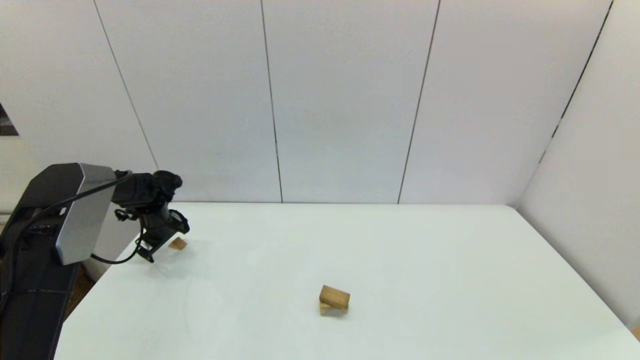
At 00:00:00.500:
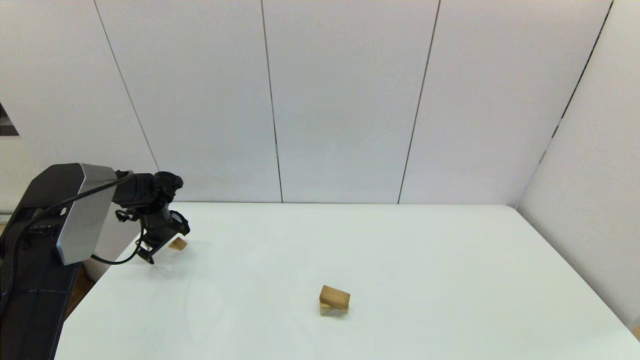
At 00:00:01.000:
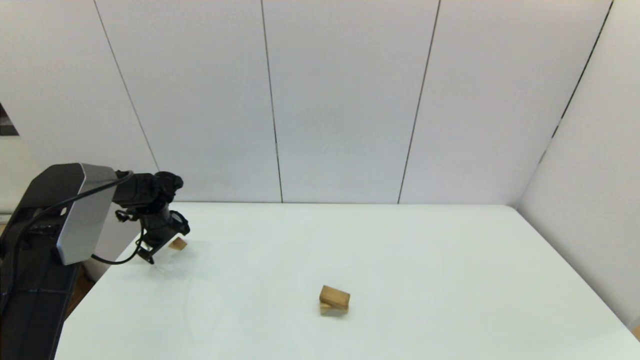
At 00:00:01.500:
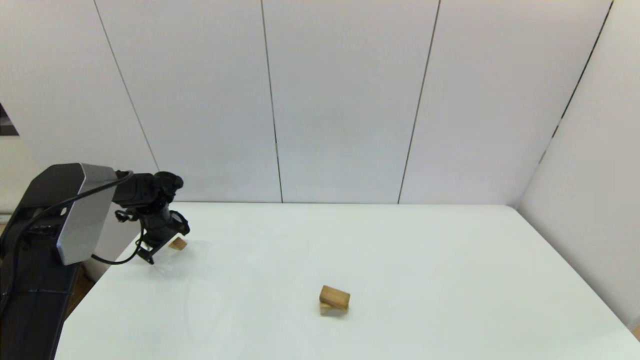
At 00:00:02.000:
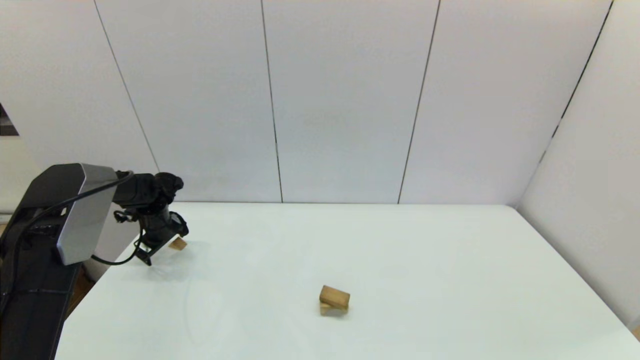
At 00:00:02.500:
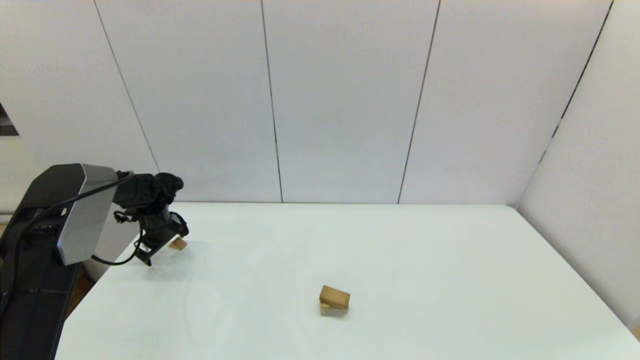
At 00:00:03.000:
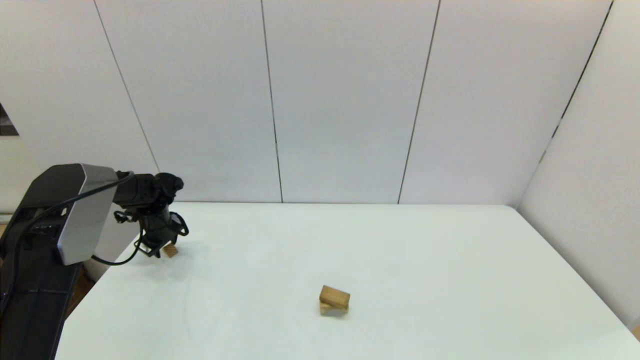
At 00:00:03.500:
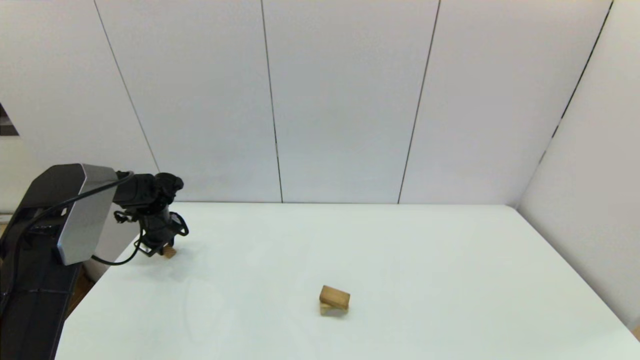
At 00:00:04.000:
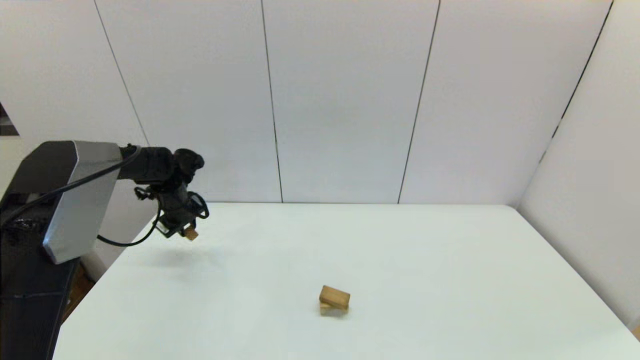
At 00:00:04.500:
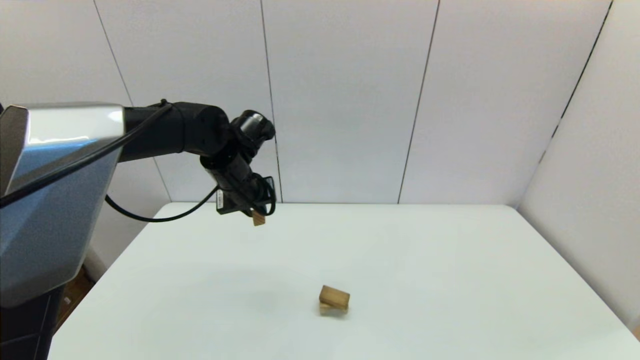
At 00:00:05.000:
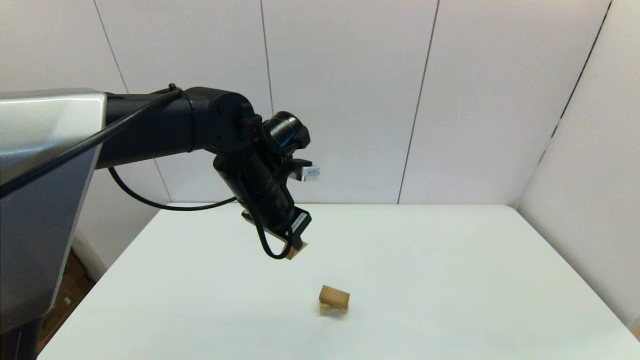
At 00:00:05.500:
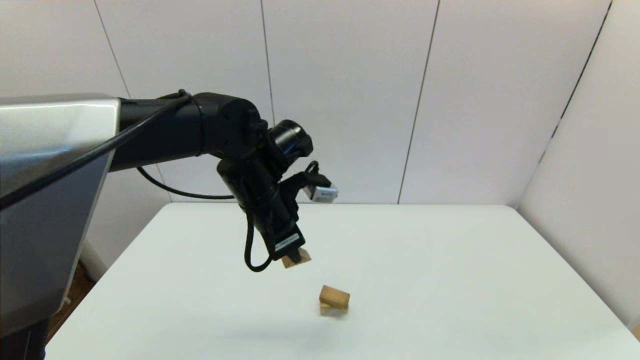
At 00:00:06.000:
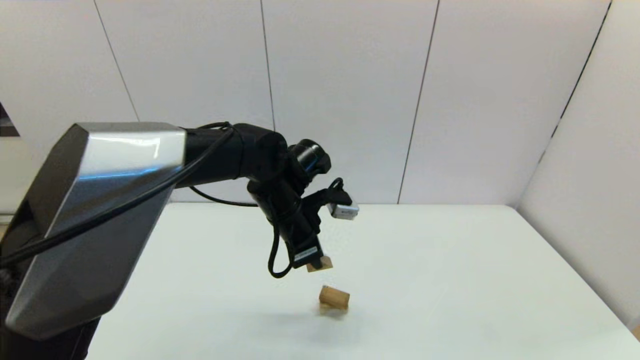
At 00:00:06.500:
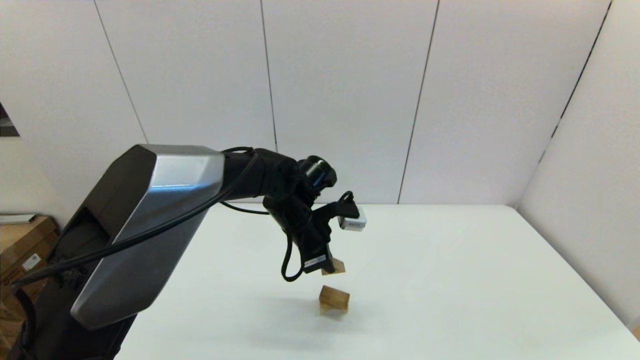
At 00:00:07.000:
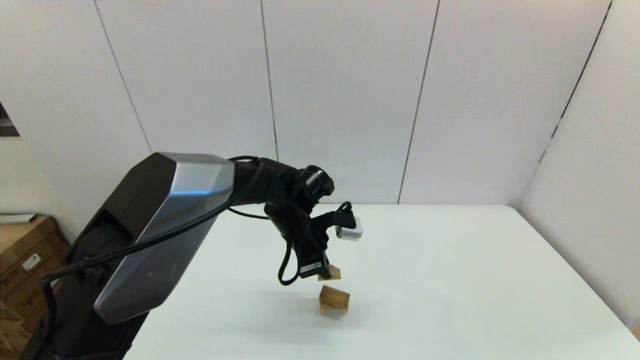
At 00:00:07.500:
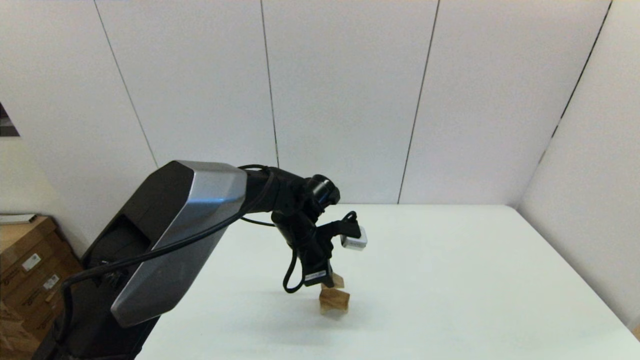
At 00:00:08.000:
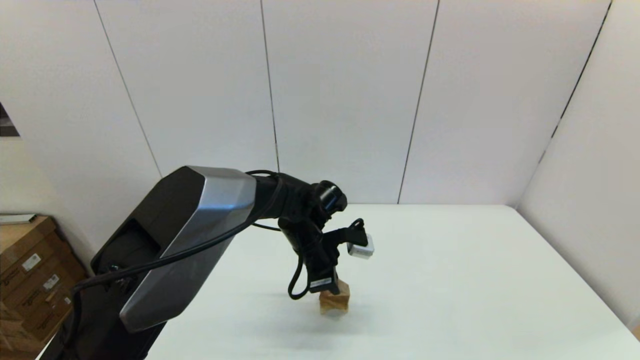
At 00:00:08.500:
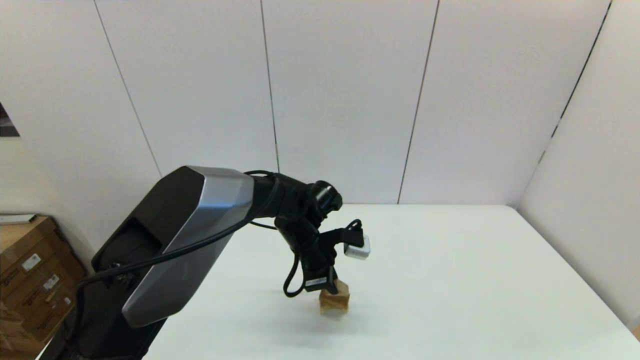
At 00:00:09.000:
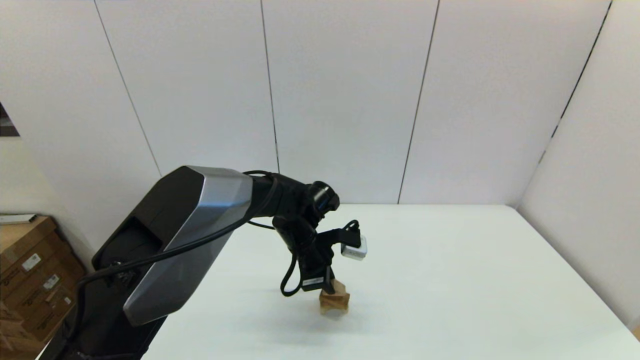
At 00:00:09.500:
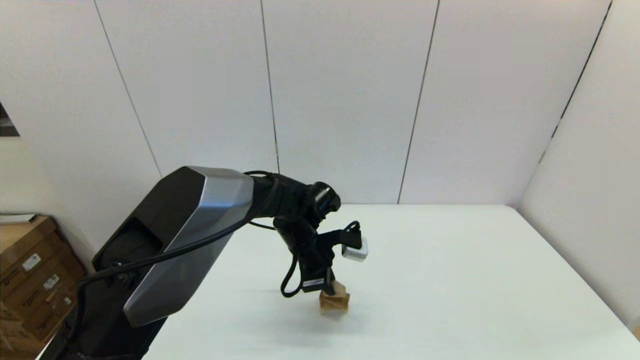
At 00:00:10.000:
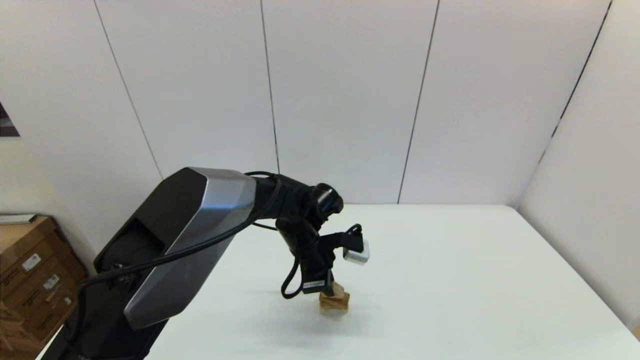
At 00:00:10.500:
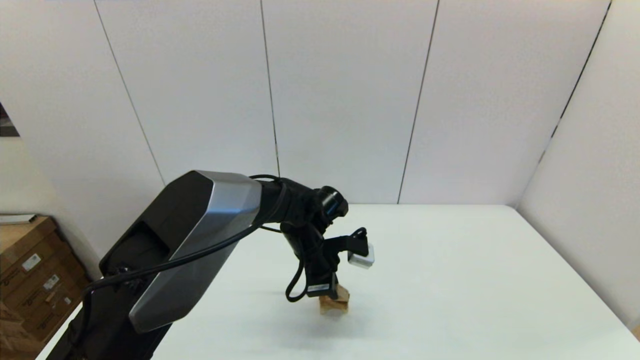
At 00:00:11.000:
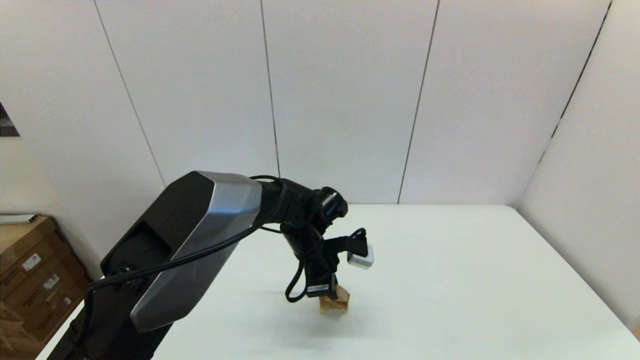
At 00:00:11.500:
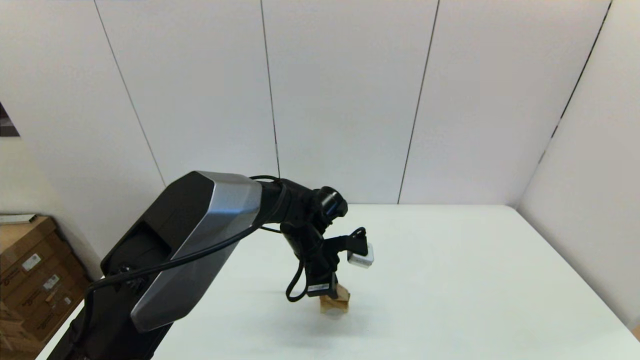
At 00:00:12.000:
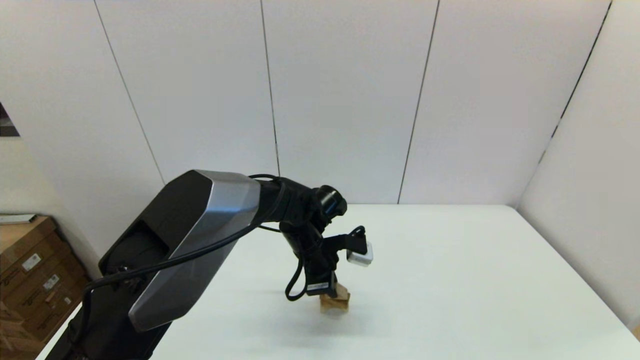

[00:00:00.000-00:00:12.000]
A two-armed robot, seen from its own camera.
Task of the whole recording: place the arched building blocks in the center of the table, set up the rectangular building blocks, and then set up the triangular building blocks.
00:00:00.000 to 00:00:02.000: The two grippers keep their place.
00:00:02.000 to 00:00:04.000: The left gripper moves to the right and upward, some 10 cm, and closes up.
00:00:04.000 to 00:00:06.000: The left gripper shifts some 25 cm to the right and backward.
00:00:06.000 to 00:00:08.000: The left gripper moves downward, approximately 10 cm.
00:00:08.000 to 00:00:10.000: Neither gripper changes place.
00:00:10.000 to 00:00:12.000: Both grippers stay put.

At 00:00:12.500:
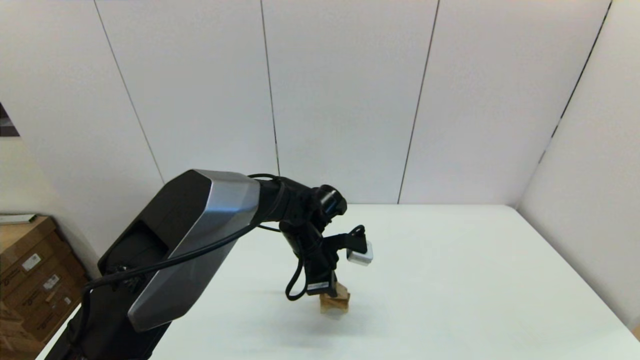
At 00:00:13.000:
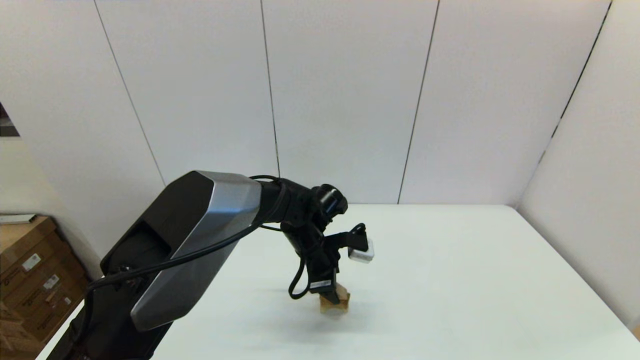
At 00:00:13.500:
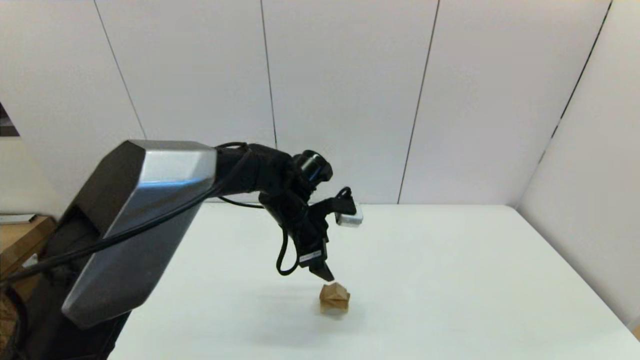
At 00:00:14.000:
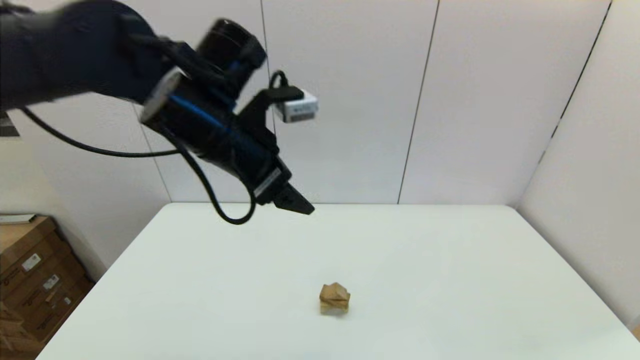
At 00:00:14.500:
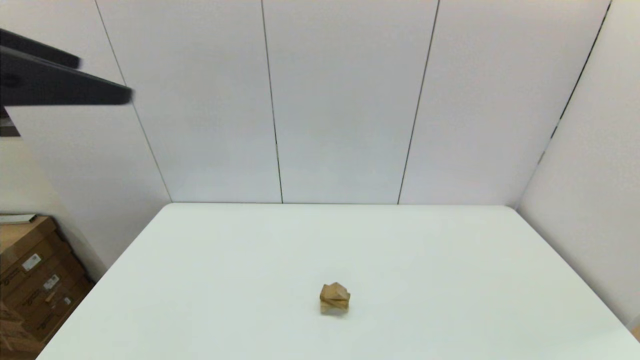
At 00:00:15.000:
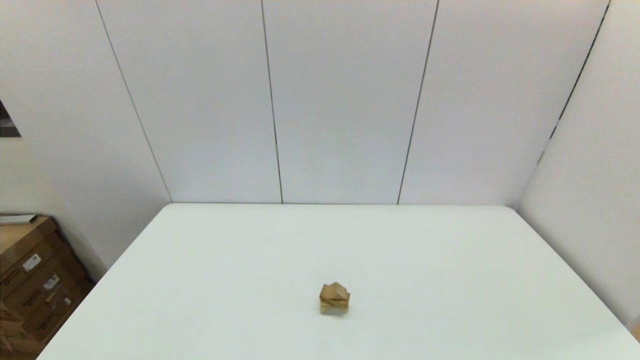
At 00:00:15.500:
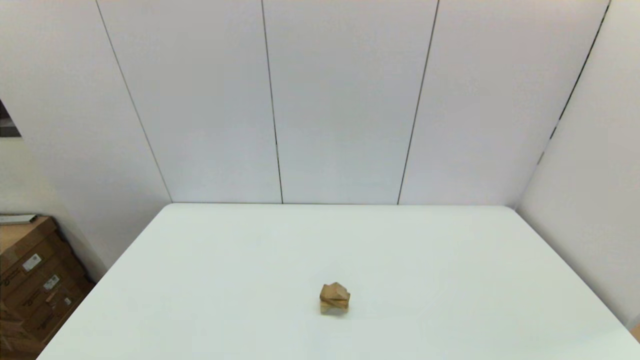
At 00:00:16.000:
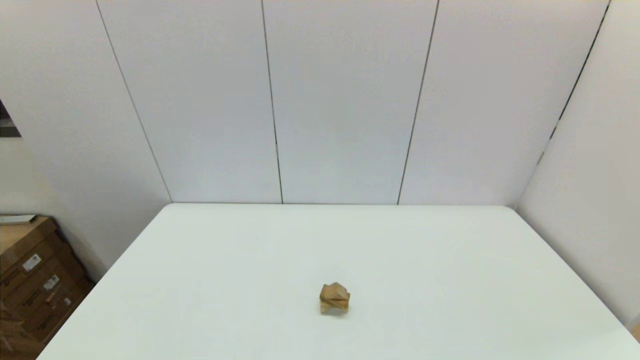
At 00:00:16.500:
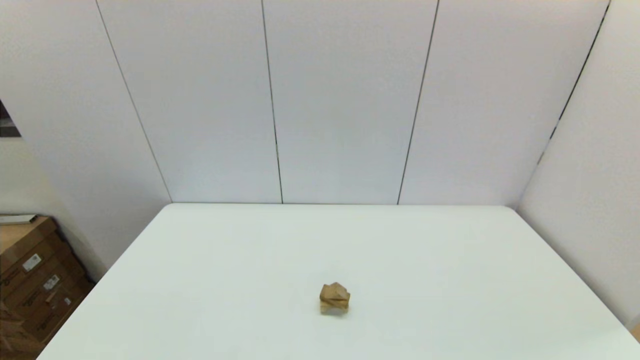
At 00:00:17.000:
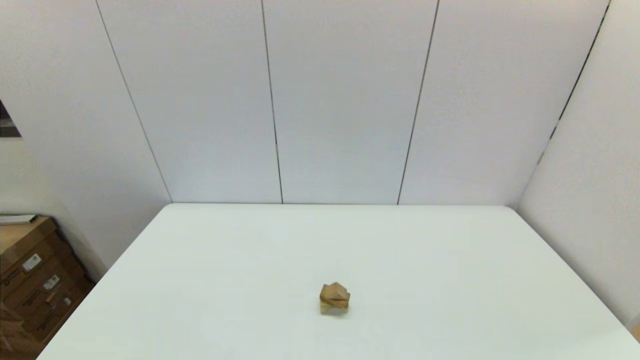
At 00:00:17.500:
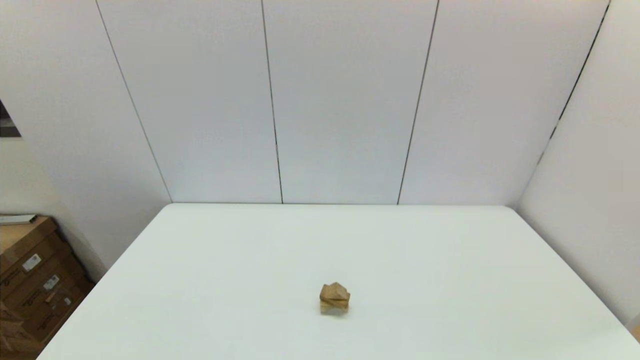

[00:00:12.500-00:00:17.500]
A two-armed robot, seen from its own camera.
Task of the whole recording: place the arched building blocks in the center of the table, set up the rectangular building blocks, and then set up the triangular building blocks.
00:00:12.500 to 00:00:15.000: The left gripper is displaced backward, upward and to the left by roughly 60 cm, and opens.
